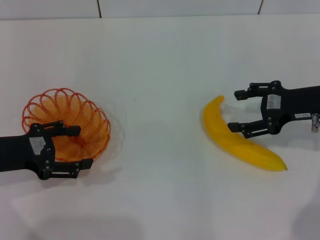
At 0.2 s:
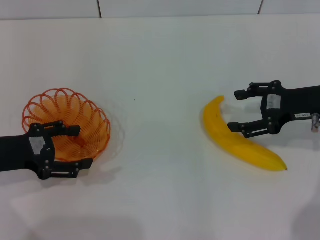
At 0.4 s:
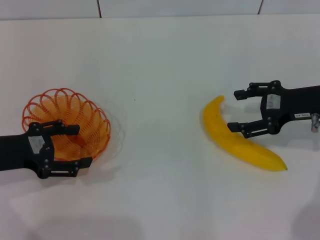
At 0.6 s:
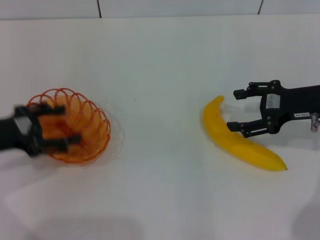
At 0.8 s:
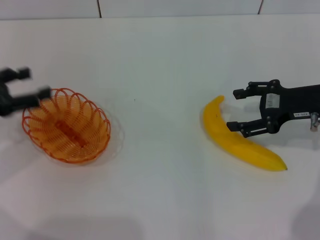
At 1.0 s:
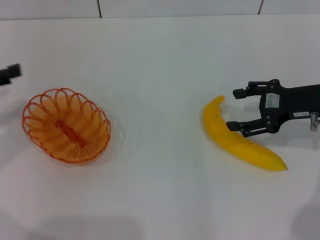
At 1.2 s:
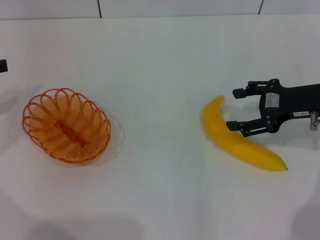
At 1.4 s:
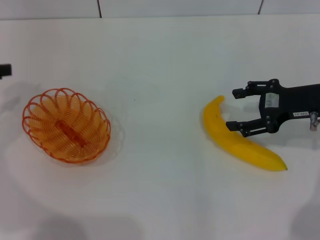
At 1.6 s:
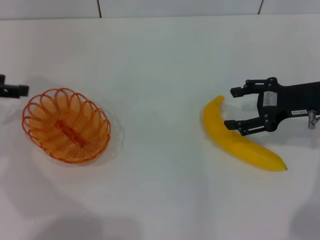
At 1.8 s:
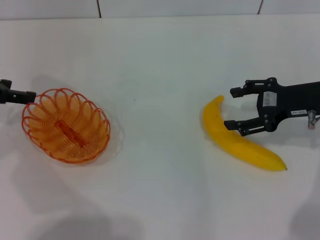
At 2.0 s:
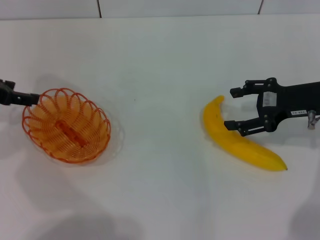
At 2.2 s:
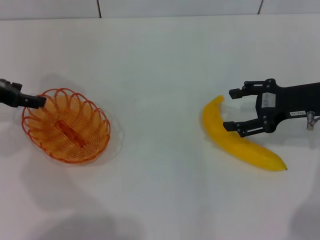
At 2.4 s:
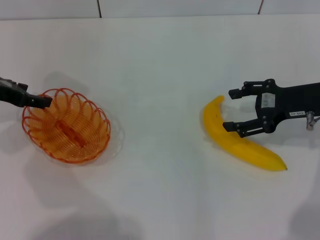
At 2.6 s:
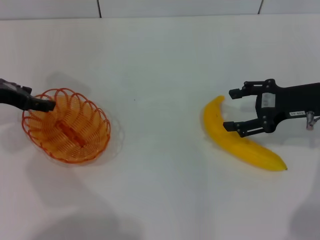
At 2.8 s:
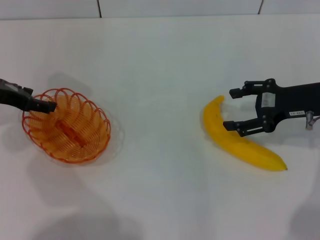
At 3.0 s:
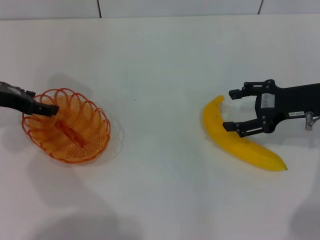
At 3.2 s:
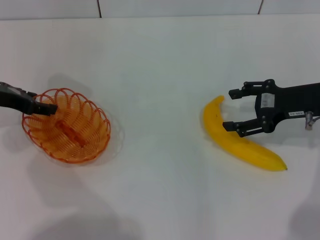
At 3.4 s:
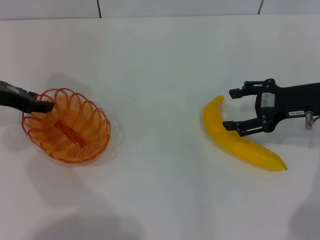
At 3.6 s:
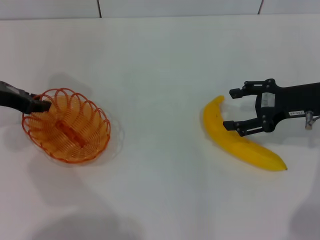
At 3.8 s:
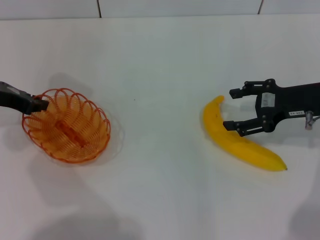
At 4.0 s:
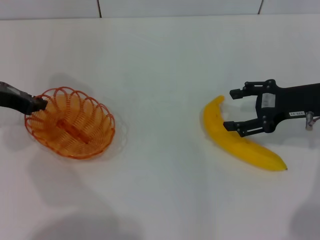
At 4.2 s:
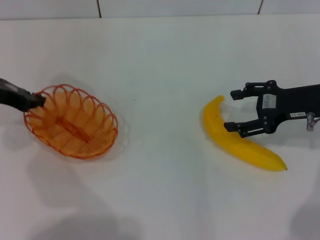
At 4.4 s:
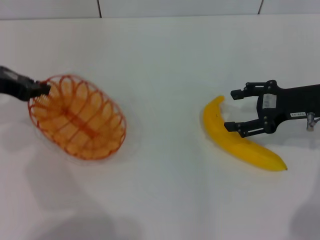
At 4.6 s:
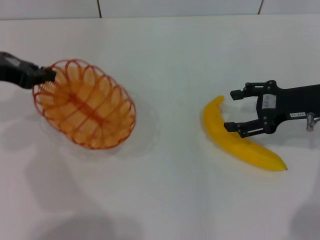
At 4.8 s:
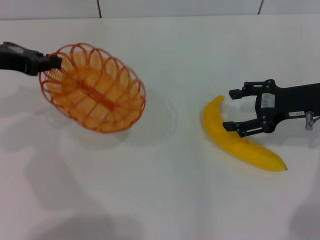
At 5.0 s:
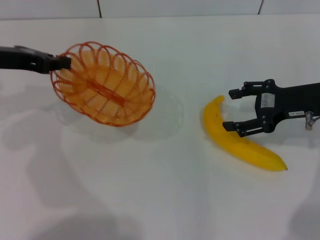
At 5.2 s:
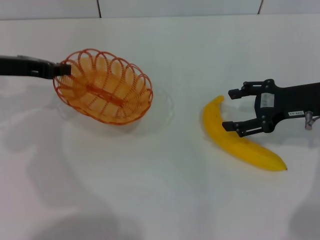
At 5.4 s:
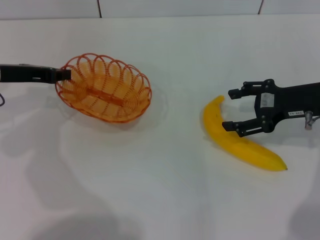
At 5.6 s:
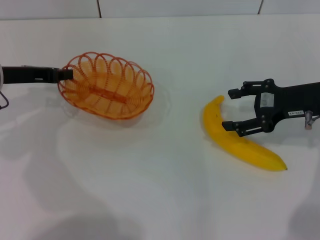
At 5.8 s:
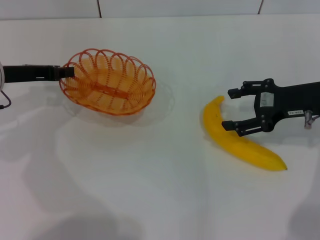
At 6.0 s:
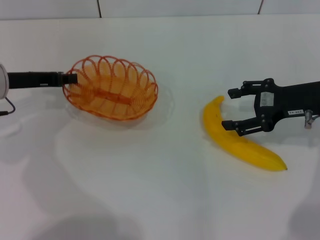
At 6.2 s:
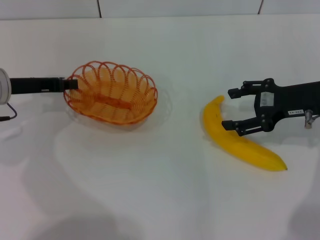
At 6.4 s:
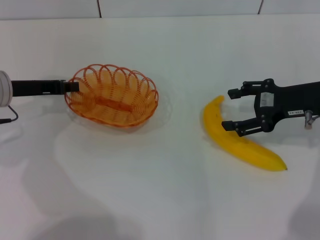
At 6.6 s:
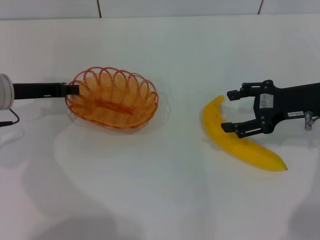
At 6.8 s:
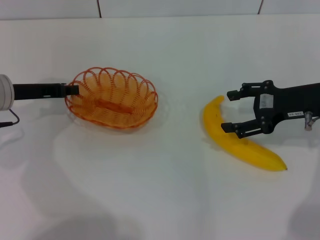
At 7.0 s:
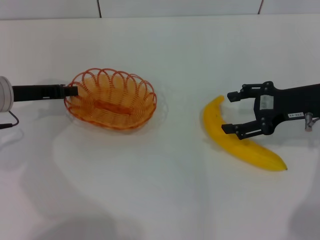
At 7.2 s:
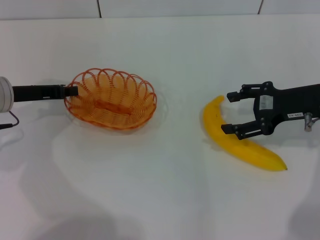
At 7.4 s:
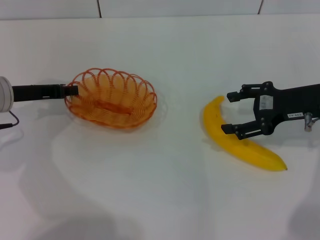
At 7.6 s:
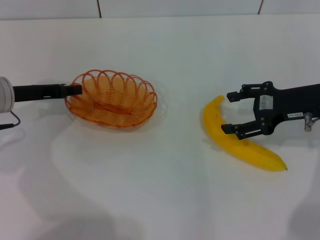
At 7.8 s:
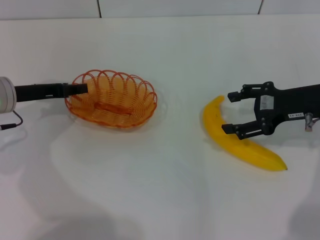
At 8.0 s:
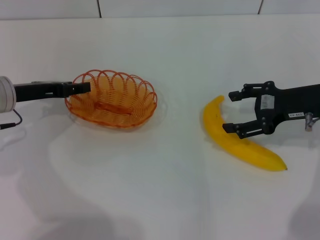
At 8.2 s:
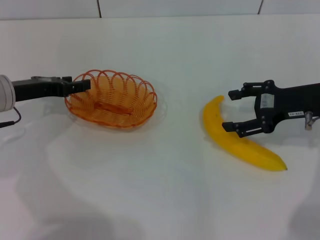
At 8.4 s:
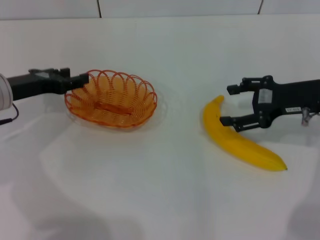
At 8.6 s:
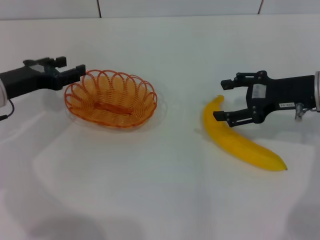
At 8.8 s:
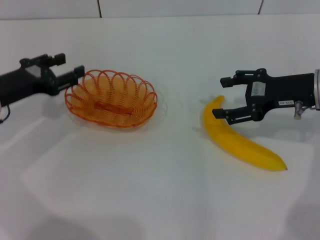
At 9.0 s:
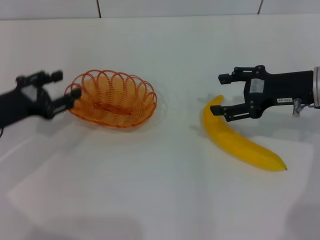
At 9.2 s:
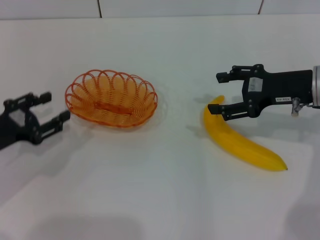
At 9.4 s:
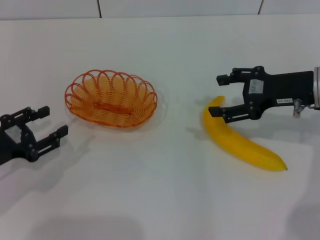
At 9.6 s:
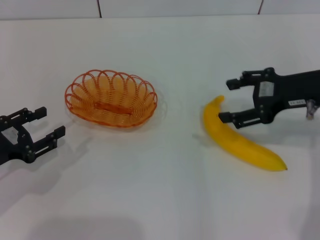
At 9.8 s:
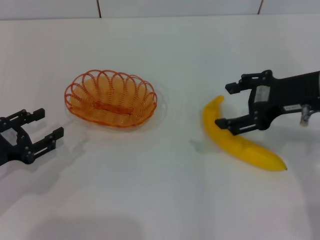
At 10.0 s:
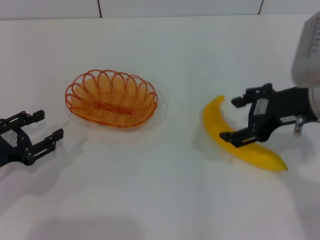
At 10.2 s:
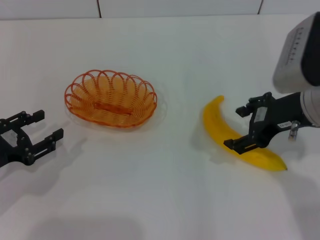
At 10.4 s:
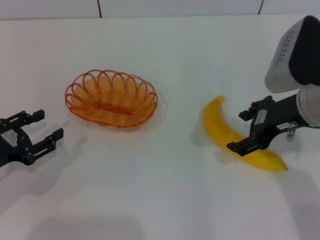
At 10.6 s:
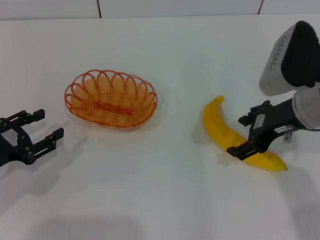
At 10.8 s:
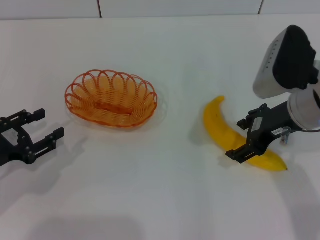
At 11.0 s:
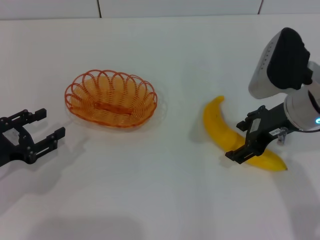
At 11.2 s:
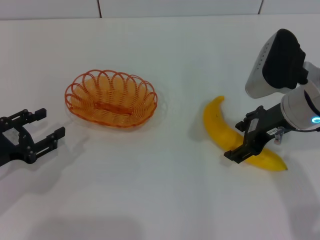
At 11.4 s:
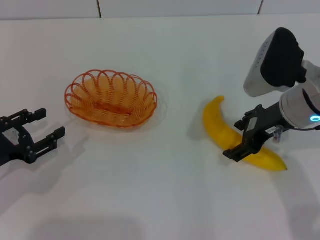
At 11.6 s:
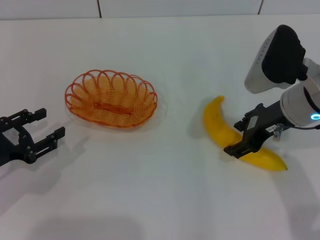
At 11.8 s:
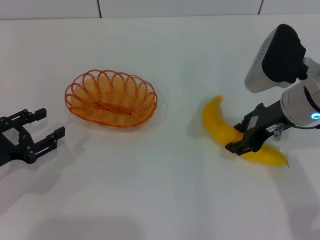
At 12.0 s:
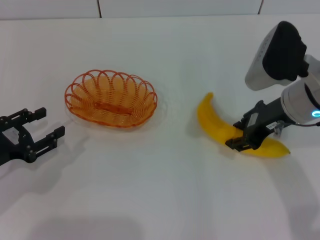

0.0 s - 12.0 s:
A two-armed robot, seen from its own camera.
Step, 0.0 s - 4.4 s: Pick up the basket with the left gripper.
Step, 4.8 s - 9.4 s: Place the basket in the center of view with the left gripper.
0.0 s - 1.6 s: The left gripper heads forward, upward and to the left, covering approximately 10 cm.
1.6 s - 3.0 s: The left gripper is displaced to the right by about 5 cm.
3.0 s - 4.4 s: The left gripper closes its fingers.
4.4 s - 6.0 s: The left gripper moves downward, about 5 cm.
6.0 s - 7.6 s: There are only small adjustments of the grippers.
7.6 s - 9.0 s: The left gripper is displaced backward by about 5 cm, and opens.
9.0 s - 10.4 s: The left gripper shifts some 5 cm backward. Meanwhile the right gripper travels to the left by some 5 cm.
10.4 s - 12.0 s: The right gripper closes its fingers.

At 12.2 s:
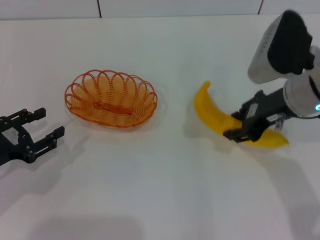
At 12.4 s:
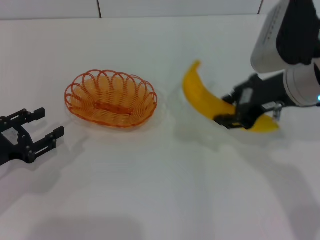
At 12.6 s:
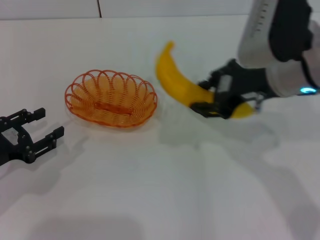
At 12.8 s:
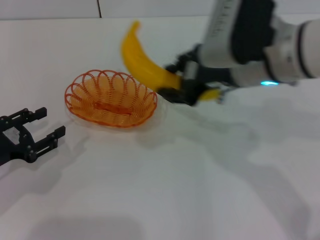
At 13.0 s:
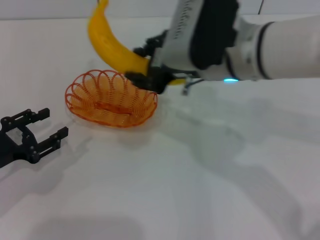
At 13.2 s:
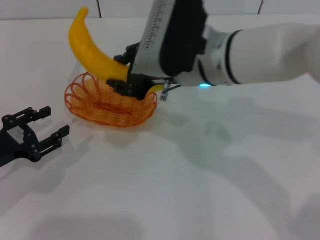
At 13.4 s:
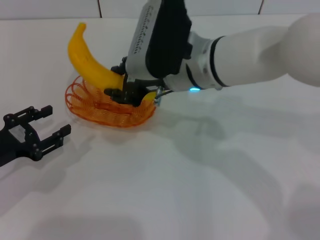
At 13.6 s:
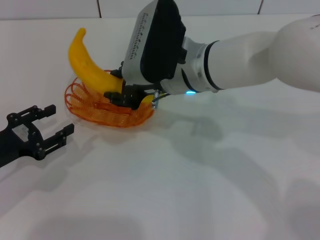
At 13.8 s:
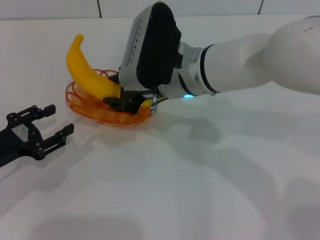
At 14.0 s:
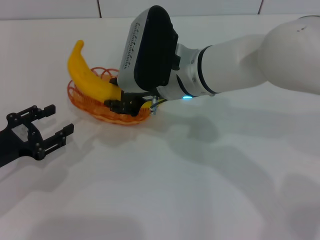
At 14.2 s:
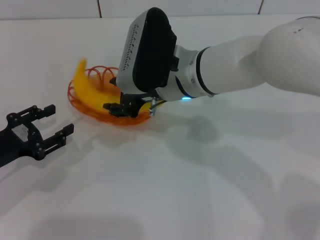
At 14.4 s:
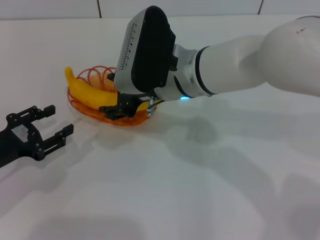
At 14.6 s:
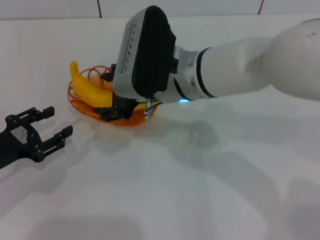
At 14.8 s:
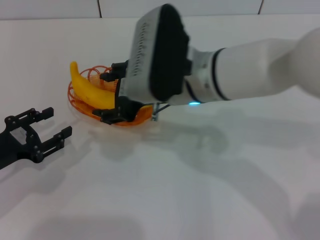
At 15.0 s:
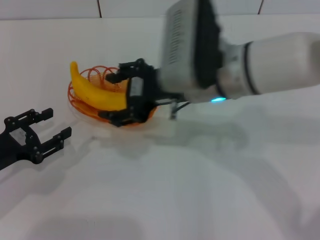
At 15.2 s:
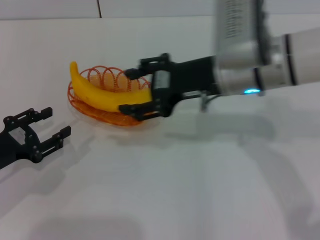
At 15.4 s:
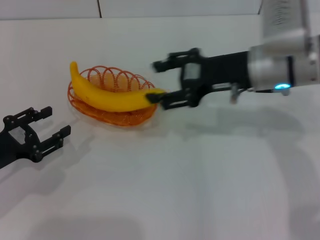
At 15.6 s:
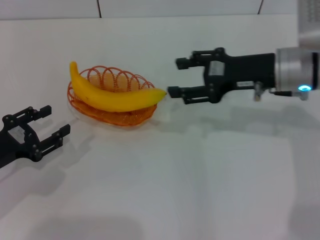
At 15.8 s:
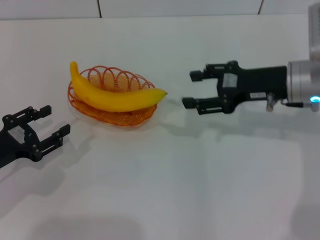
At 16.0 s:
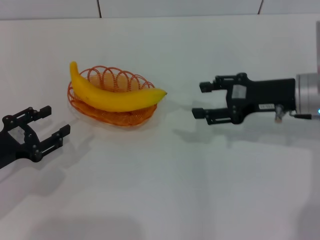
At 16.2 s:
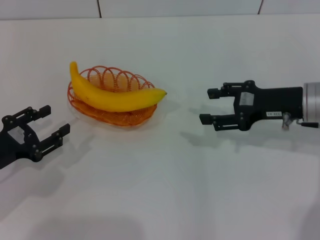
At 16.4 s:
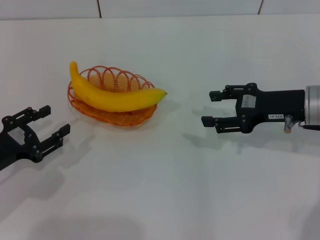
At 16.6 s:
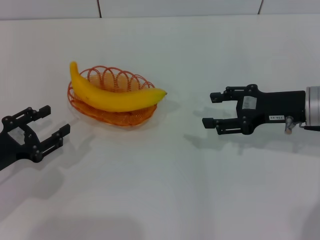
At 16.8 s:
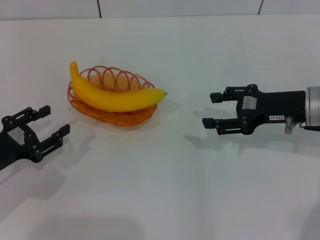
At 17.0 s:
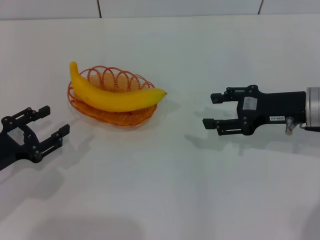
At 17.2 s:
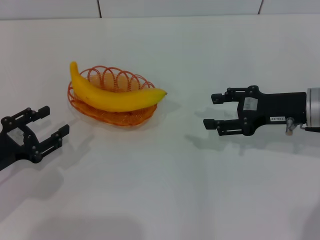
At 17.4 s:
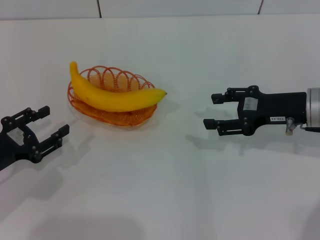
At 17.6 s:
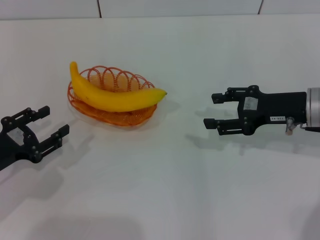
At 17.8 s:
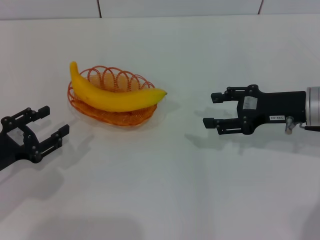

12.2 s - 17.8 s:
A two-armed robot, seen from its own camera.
Step, 12.4 s - 15.6 s: Place the banana into the basket with the right gripper.
12.2 s - 13.6 s: The right gripper shifts approximately 15 cm to the left.
13.6 s - 15.0 s: The right gripper ends up approximately 5 cm from where it was, and opens its fingers.
15.0 s - 16.4 s: The right gripper is displaced to the right and downward by approximately 20 cm.
16.4 s - 17.8 s: Both grippers stay put.
